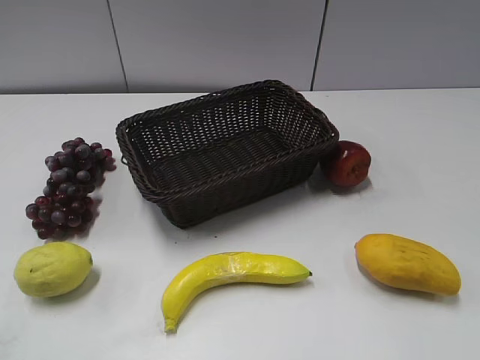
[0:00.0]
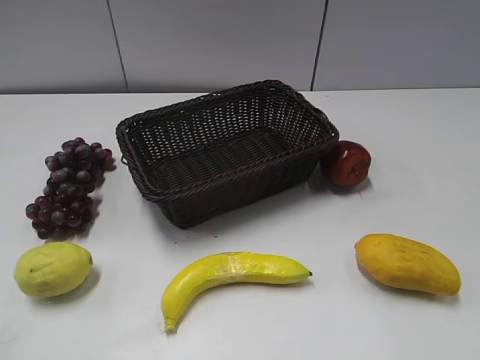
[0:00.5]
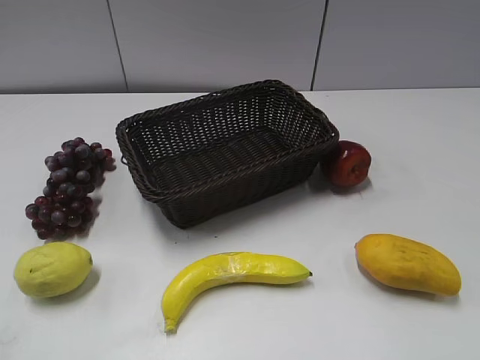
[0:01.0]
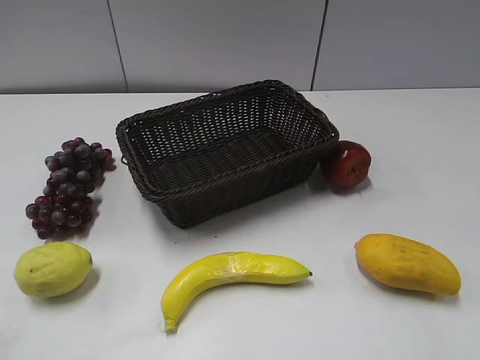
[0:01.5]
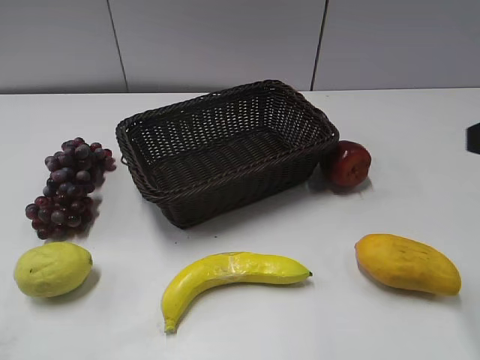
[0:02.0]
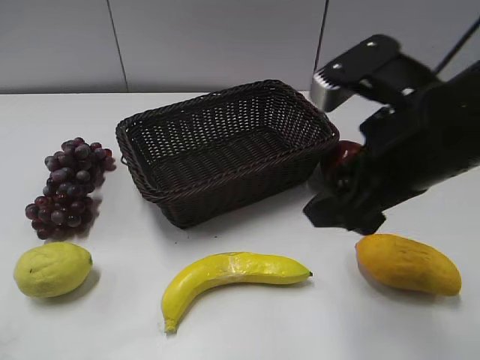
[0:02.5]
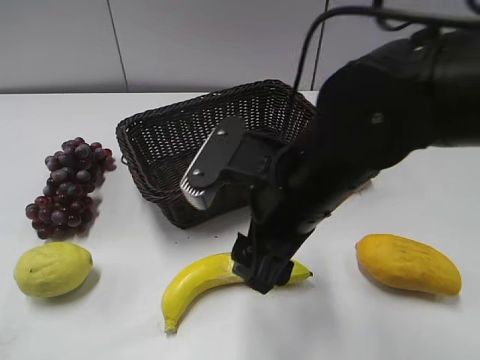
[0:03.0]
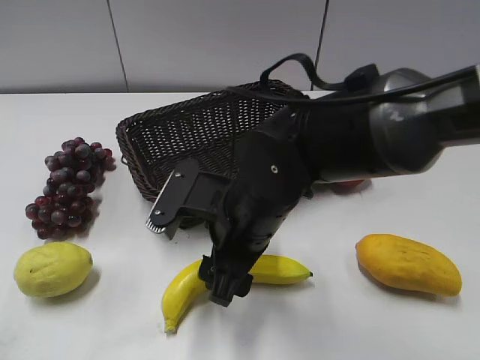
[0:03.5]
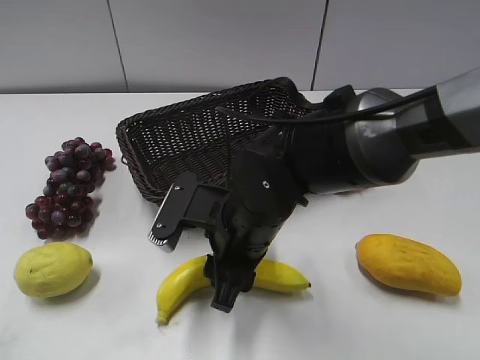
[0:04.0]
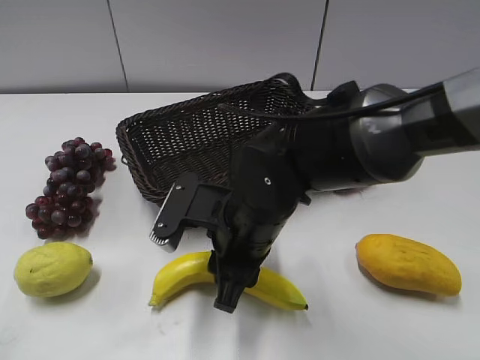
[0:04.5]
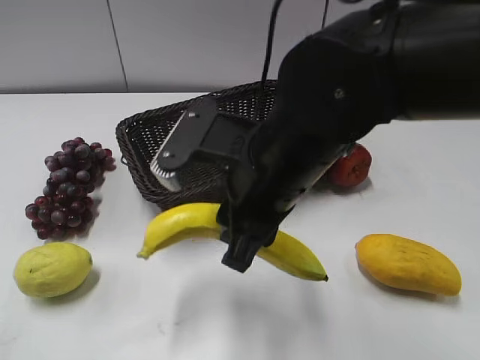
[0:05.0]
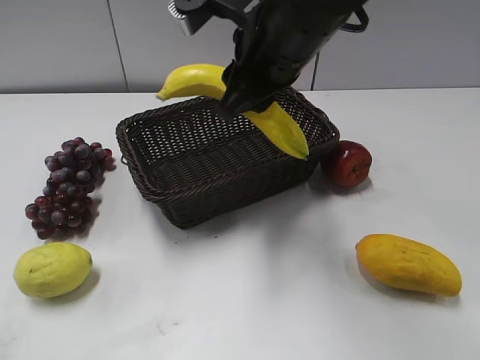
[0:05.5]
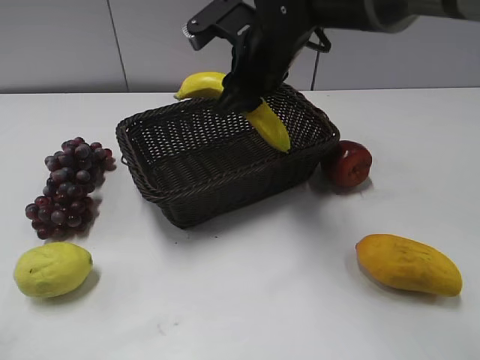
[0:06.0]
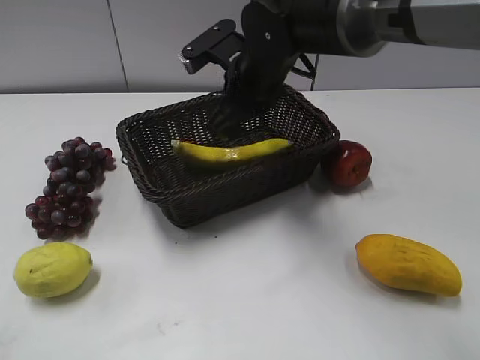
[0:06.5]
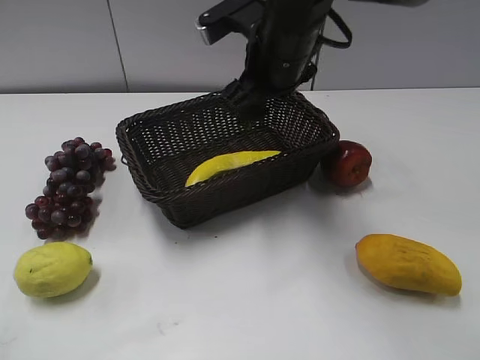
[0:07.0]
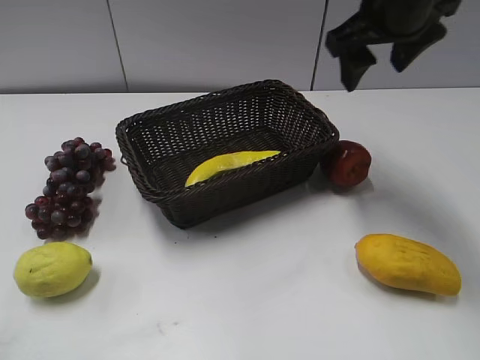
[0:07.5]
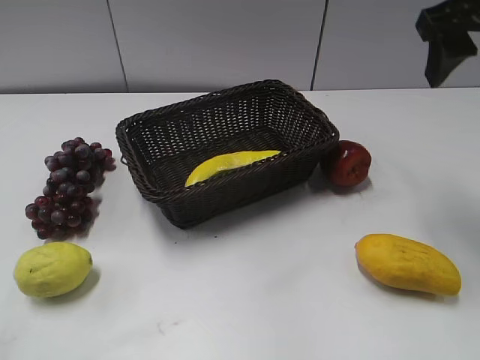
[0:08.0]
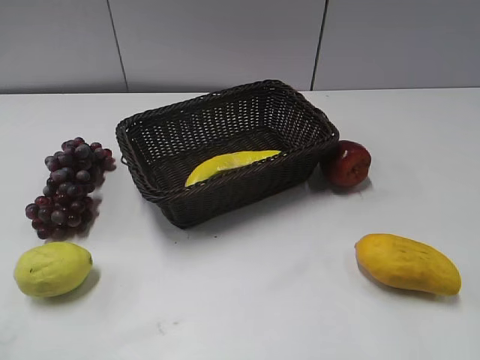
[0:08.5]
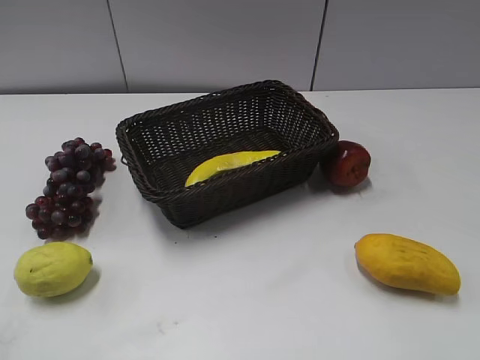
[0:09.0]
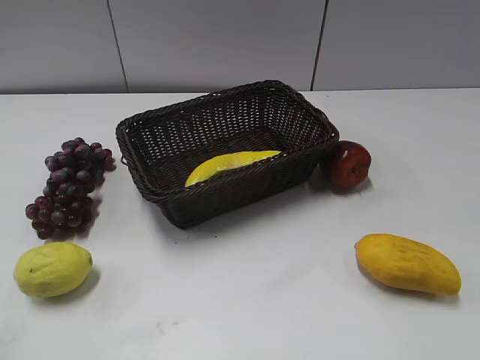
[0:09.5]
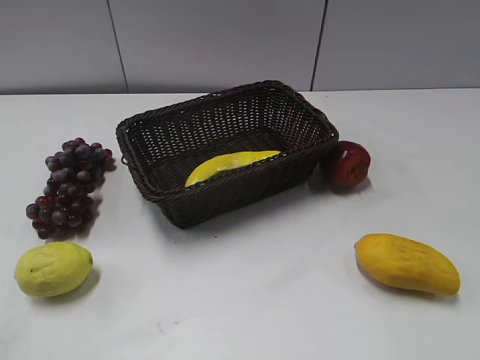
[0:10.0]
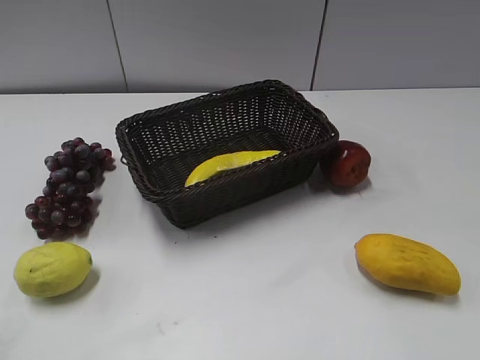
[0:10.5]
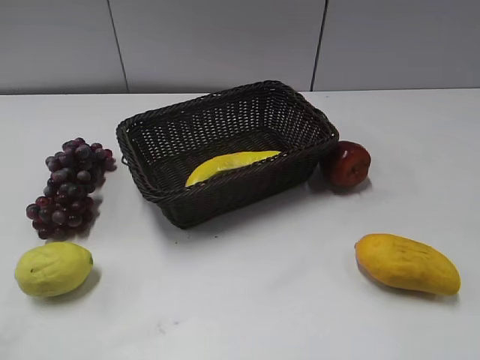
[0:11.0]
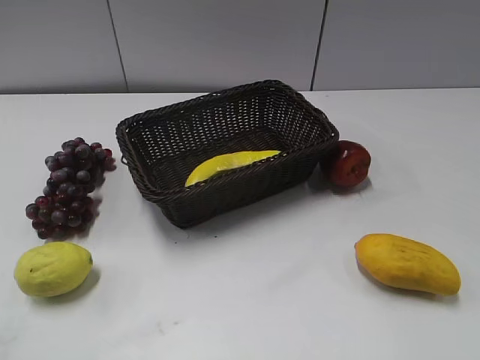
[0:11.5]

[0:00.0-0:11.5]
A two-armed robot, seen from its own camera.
Step, 0:00.5 to 0:04.5: Grasp the banana with right gripper.
Step, 0:05.0 to 0:06.5: Place the banana in the basket with right gripper.
0:02.0 to 0:04.0: The right gripper is displaced to the left and downward by roughly 30 cm, and closes its fingers.
0:04.0 to 0:06.0: The right gripper heads forward and upward, covering approximately 20 cm.
0:06.0 to 0:07.5: The right gripper goes roughly 15 cm to the right and upward, and opens.
0:07.5 to 0:09.5: The right gripper goes some 35 cm backward and to the right.

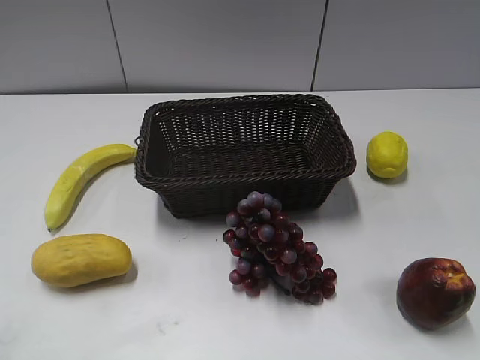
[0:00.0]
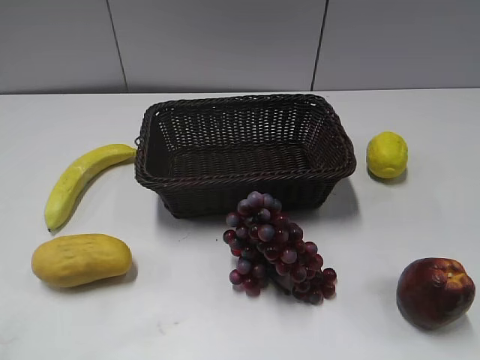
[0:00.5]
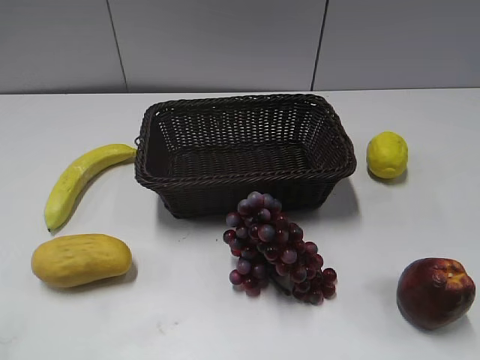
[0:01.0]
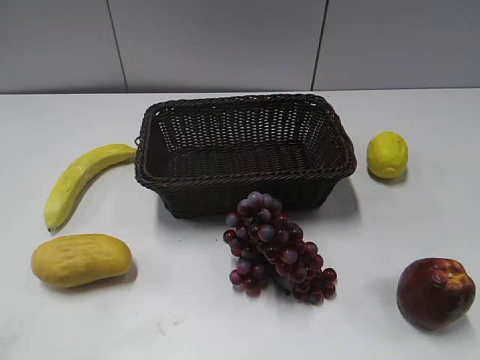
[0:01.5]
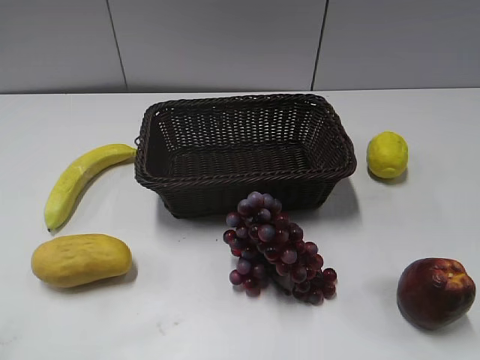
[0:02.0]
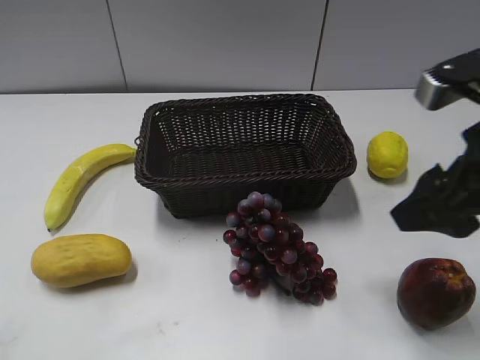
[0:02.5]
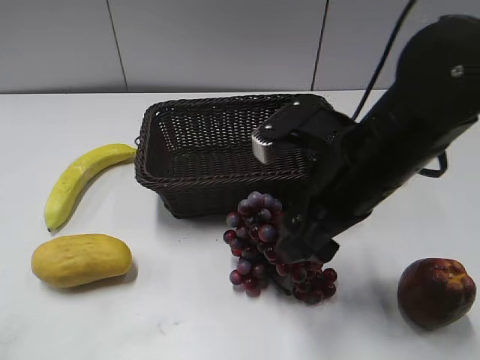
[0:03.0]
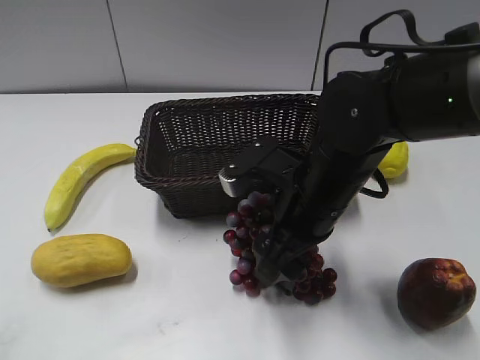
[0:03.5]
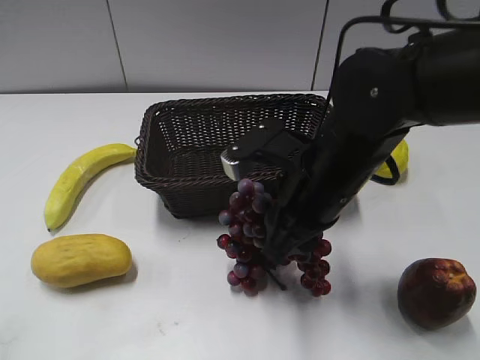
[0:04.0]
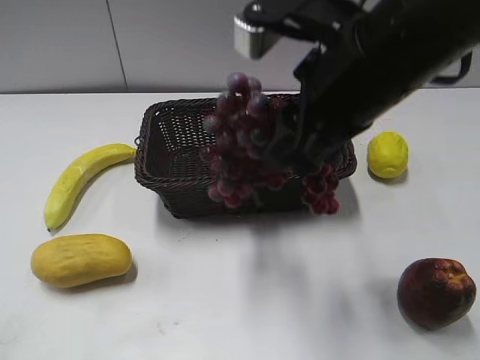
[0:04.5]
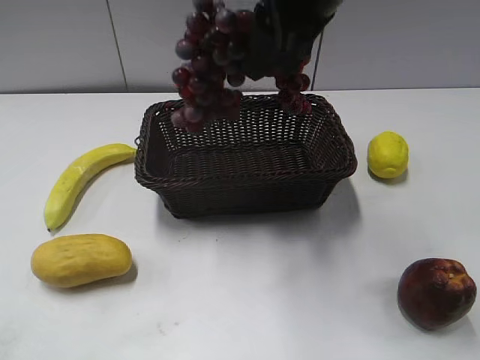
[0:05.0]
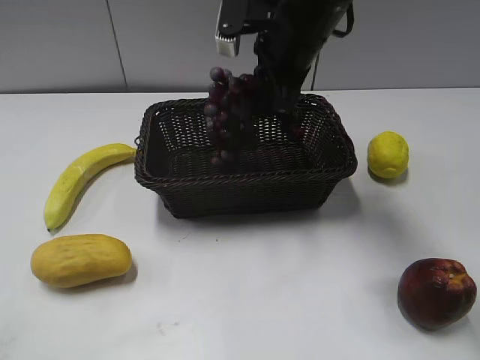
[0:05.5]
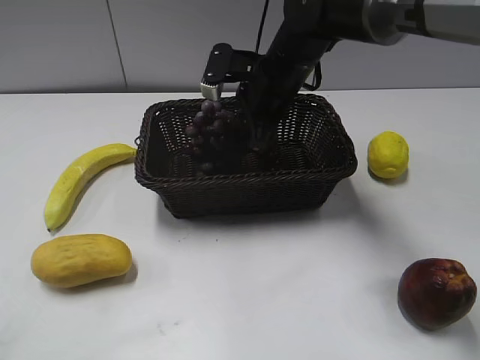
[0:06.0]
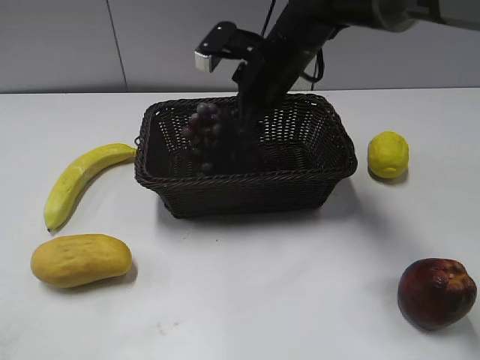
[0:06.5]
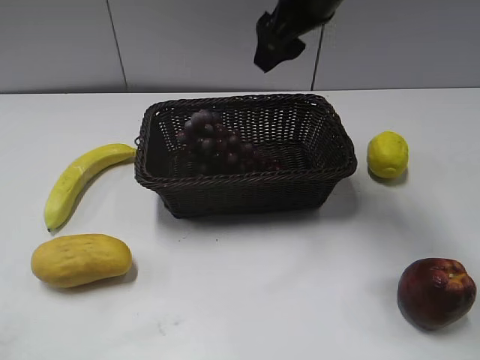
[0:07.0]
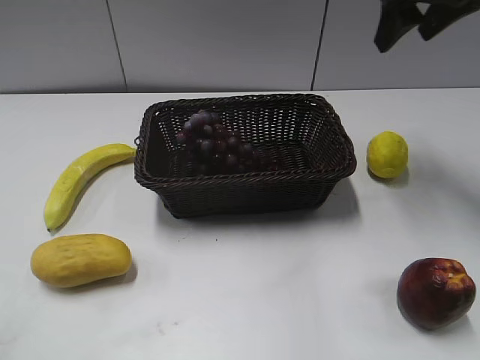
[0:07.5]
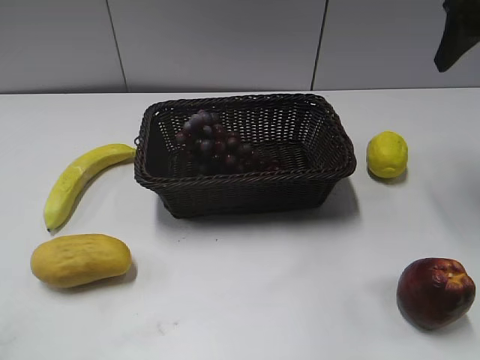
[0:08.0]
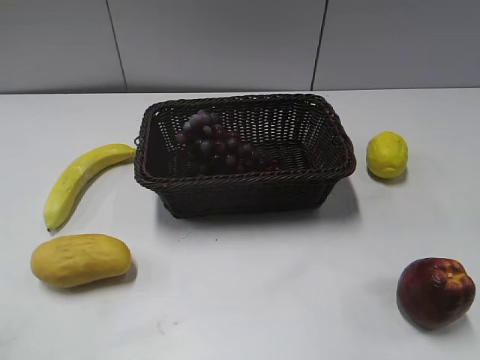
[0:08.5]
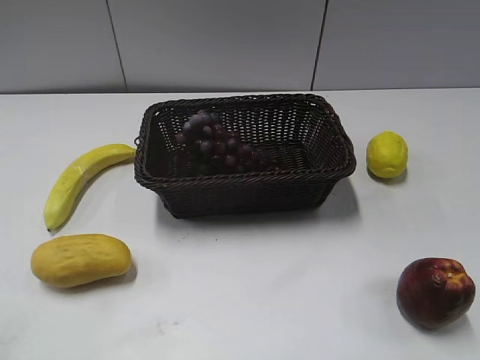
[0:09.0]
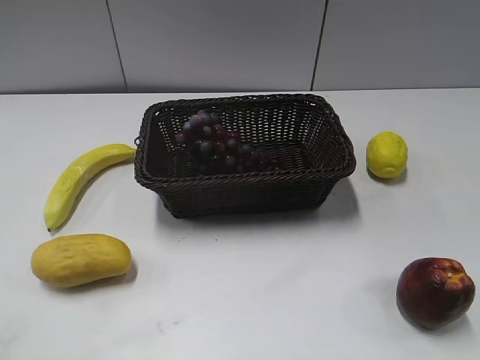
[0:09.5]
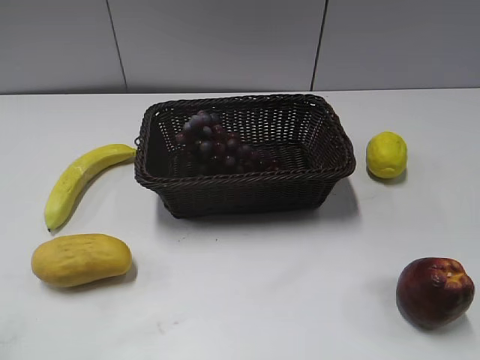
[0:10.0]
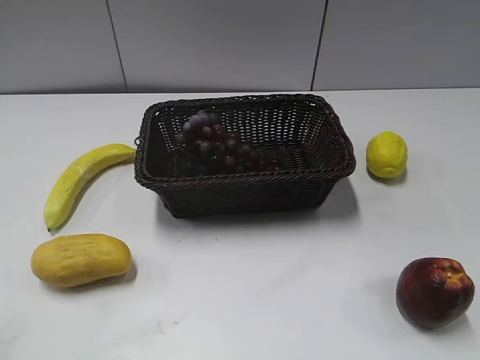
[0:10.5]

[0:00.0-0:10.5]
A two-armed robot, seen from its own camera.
Step, 0:02.5 to 0:03.5: Grasp the grape with right gripper.
Step, 0:04.0 to 0:06.0: Place the grape in the basket with right gripper.
0:02.0 to 0:04.0: The right gripper moves to the left, forward and downward, about 25 cm, and closes its fingers.
0:04.0 to 0:06.5: The right gripper moves forward, about 15 cm, and opens up.
0:06.5 to 0:08.5: The right gripper is displaced to the right, backward and upward by roughly 35 cm.
